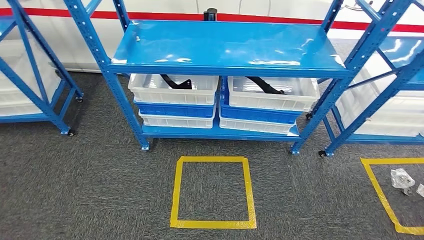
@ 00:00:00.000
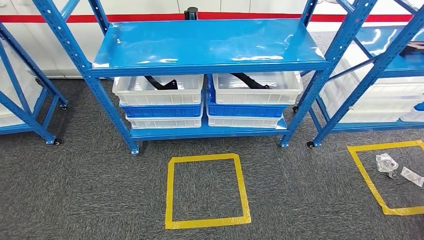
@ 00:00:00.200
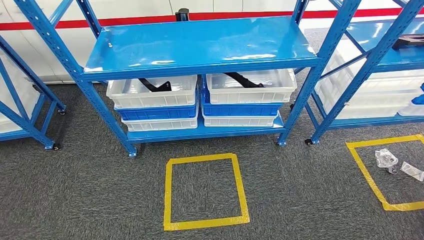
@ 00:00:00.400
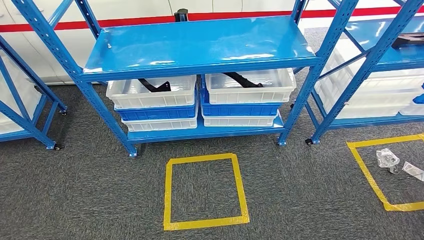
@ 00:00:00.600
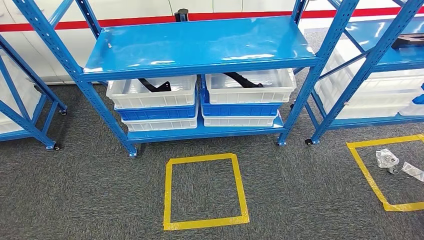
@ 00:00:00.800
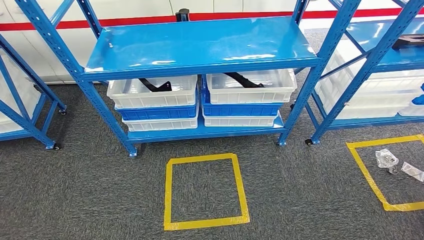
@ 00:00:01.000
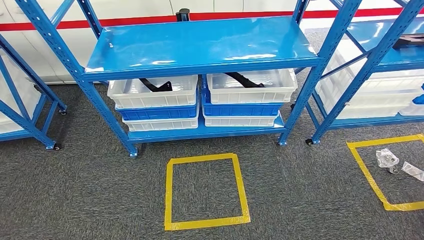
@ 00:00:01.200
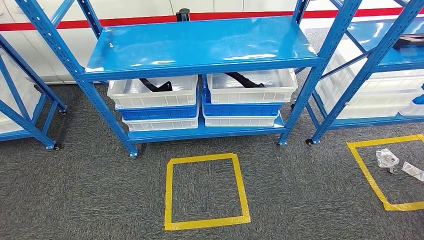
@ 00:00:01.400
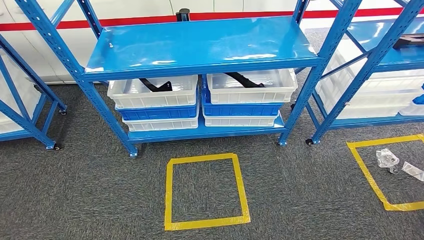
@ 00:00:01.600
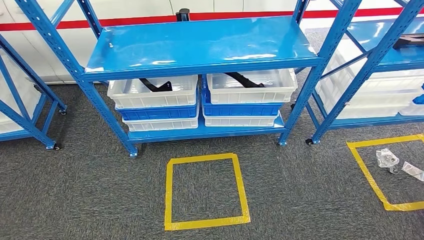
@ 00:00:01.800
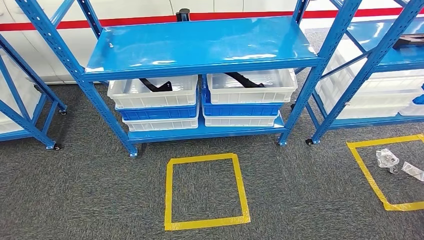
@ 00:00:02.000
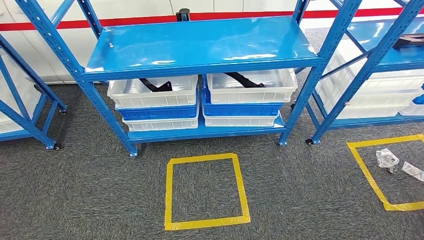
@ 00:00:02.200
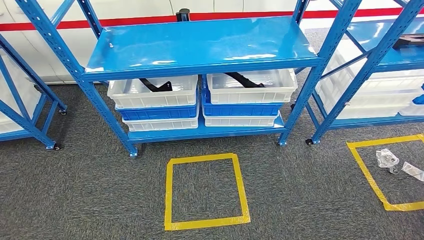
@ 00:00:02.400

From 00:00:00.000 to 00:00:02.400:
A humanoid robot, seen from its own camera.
Step, from 00:00:00.000 to 00:00:02.400: Move to the initial position of the shelf.
